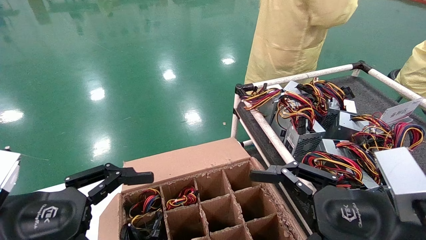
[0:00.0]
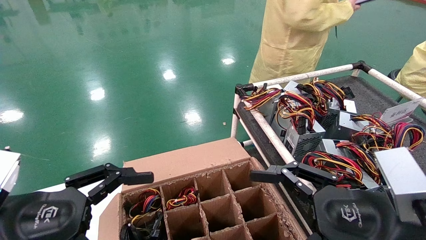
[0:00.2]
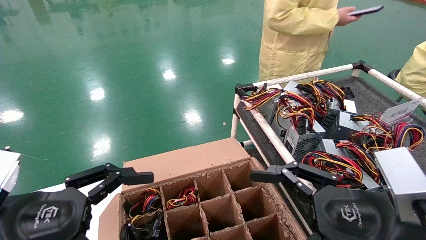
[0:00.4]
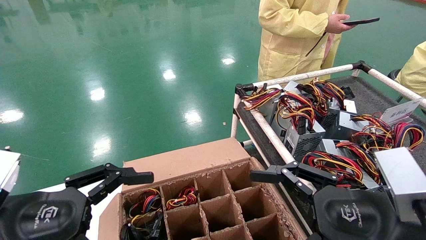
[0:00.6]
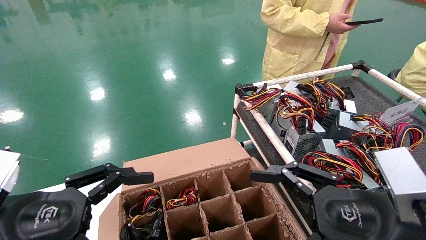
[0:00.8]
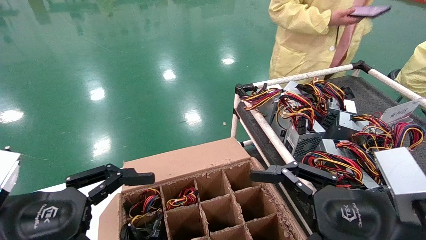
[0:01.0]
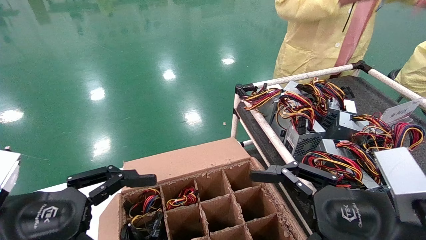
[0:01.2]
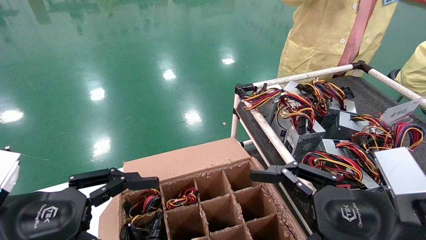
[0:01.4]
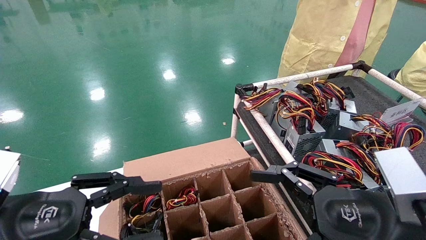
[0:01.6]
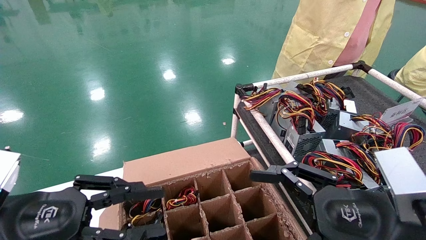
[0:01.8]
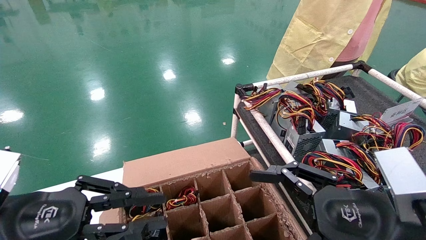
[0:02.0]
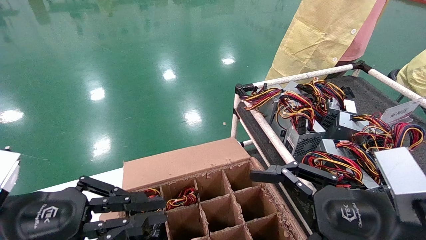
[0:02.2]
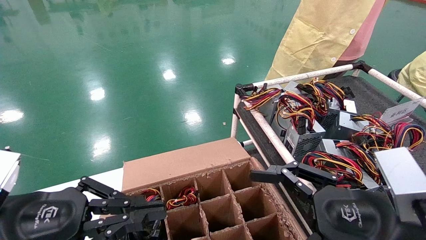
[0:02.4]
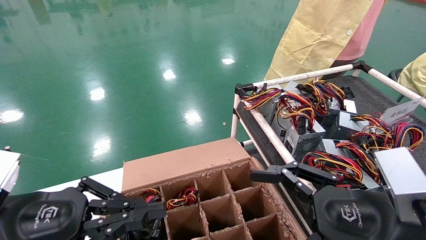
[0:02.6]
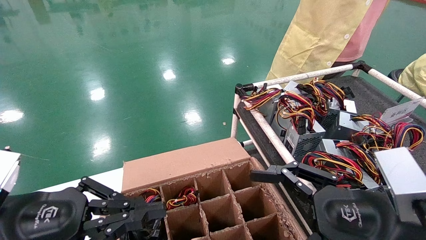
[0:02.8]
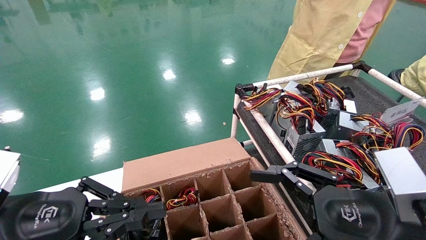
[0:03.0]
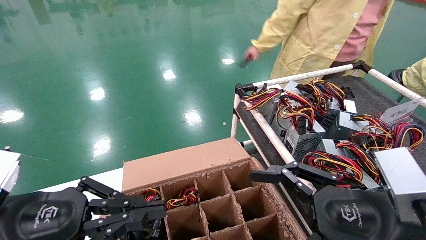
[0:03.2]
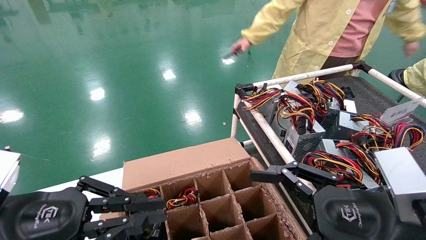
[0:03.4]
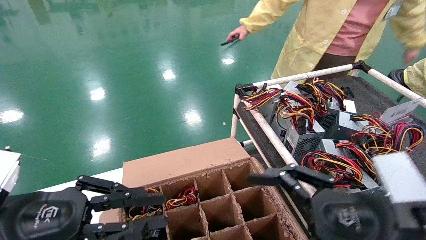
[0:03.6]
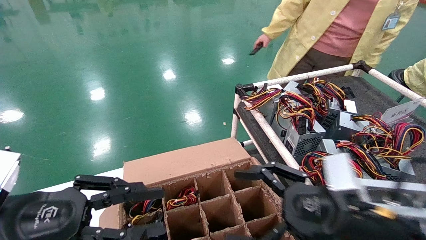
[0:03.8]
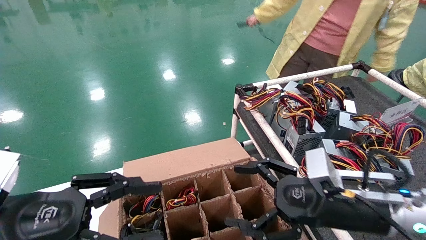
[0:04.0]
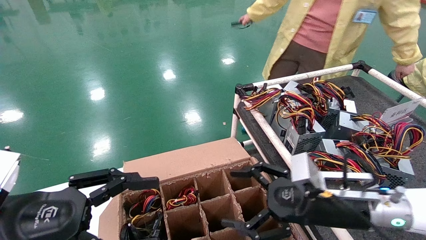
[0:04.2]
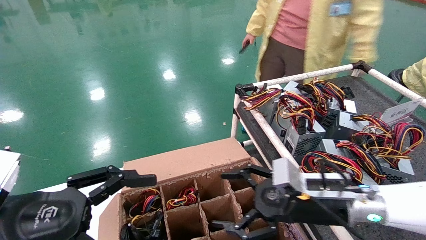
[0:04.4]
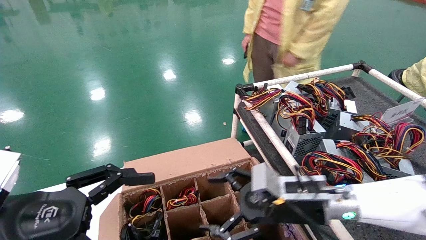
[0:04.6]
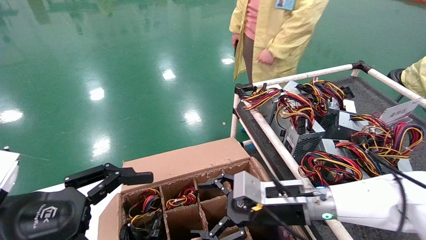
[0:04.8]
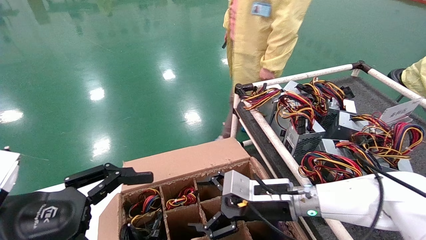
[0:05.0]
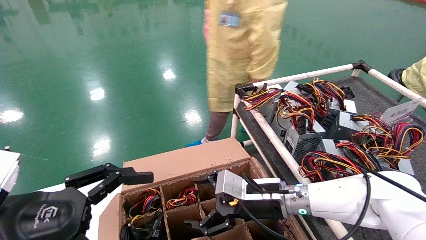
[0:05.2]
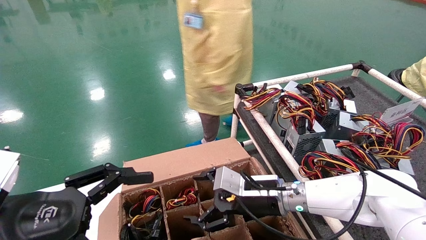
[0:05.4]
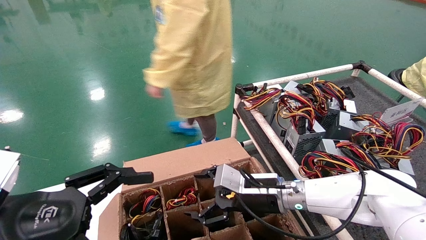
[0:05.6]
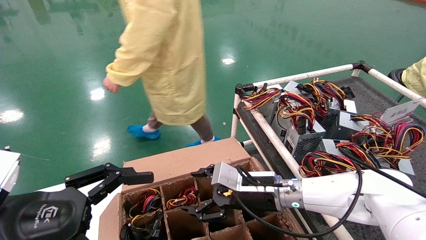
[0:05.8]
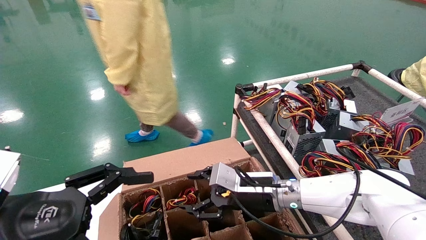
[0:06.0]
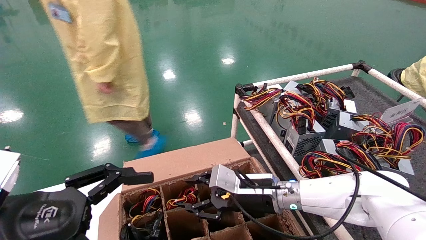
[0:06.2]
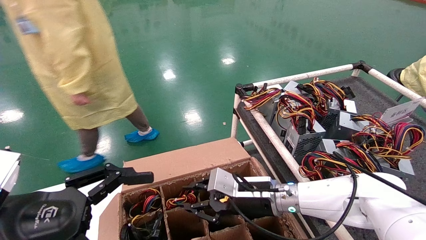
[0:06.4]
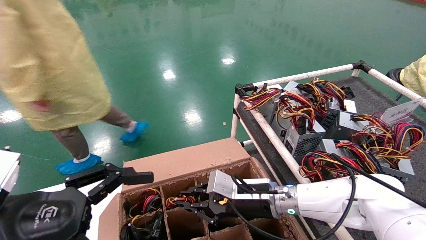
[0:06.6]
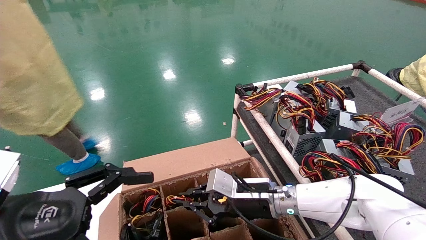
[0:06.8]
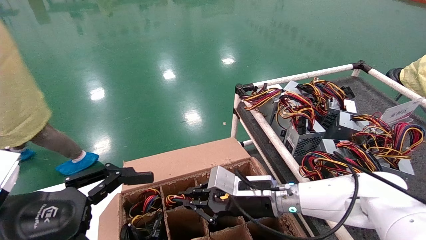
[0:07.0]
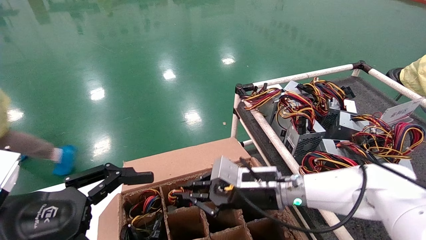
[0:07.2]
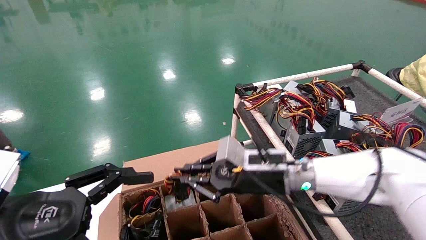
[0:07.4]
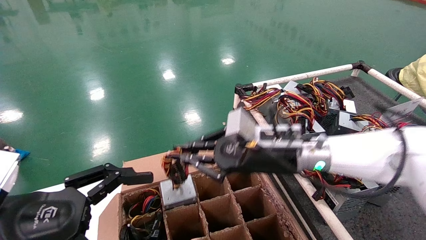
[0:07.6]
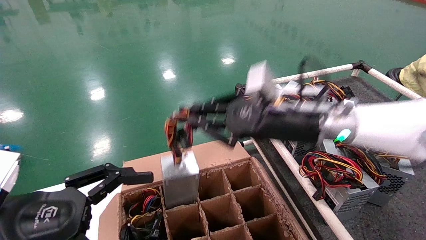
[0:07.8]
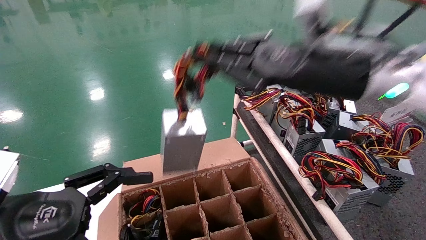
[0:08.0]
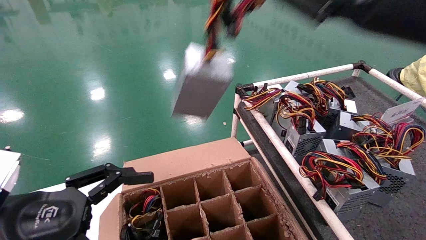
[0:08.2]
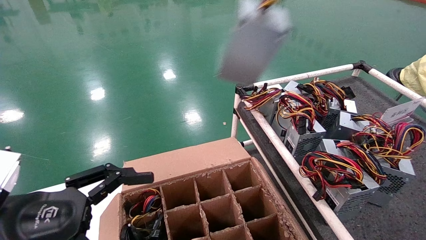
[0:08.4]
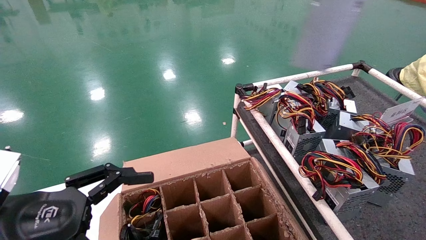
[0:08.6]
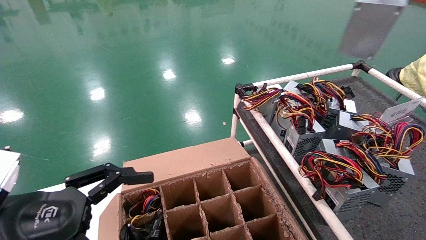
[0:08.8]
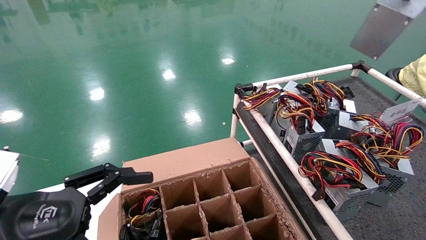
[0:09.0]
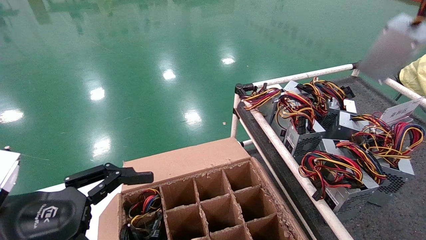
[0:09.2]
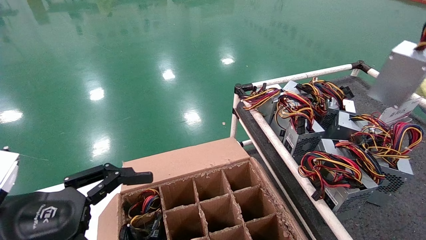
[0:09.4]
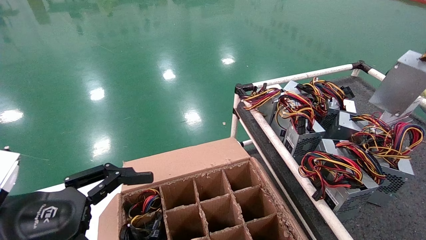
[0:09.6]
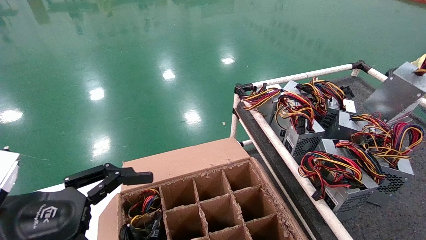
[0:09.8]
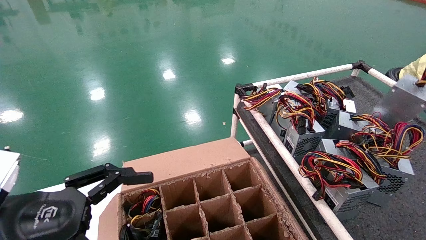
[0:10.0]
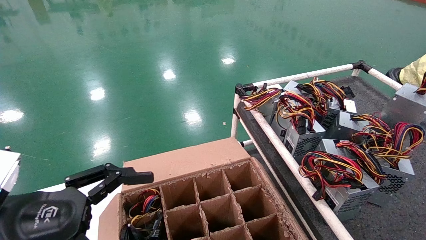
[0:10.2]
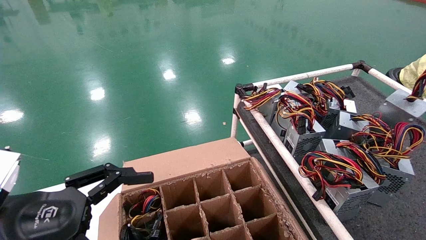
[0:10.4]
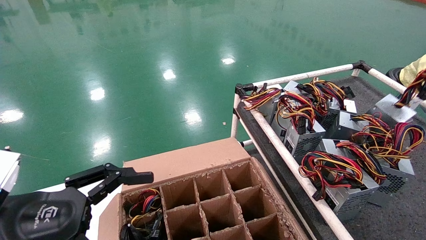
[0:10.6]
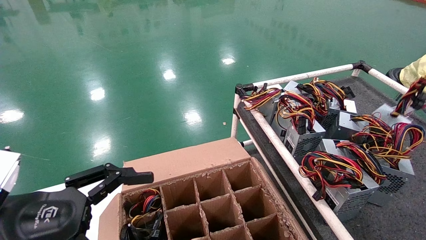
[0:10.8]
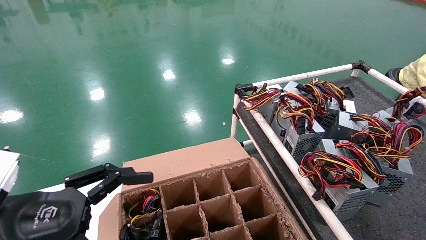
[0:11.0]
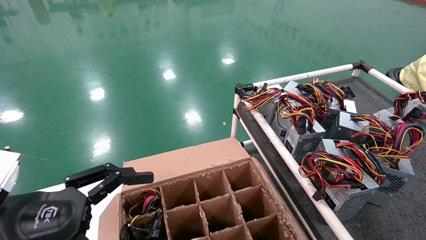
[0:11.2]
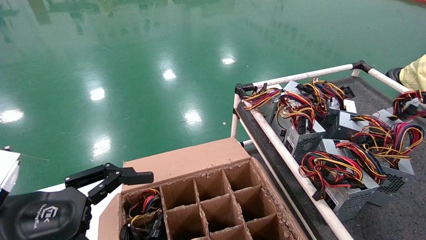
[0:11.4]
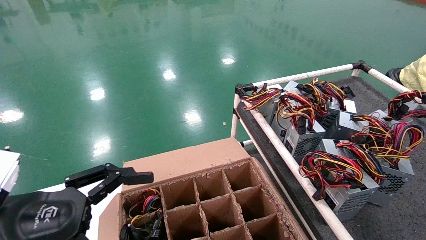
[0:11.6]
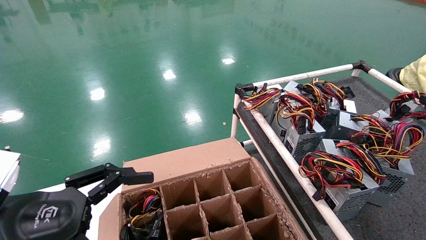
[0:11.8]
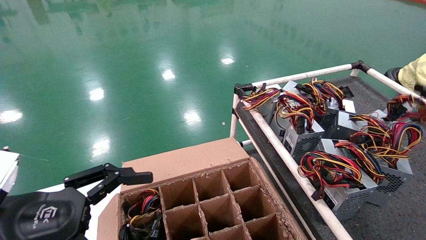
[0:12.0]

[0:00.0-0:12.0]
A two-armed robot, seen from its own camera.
Step, 0:01.8 to 0:06.8: Grab and lift the power supply from the large box.
0:00.0 to 0:01.6: Both grippers stay put.
0:01.6 to 0:03.0: The left gripper closes up.
0:03.0 to 0:04.4: The right gripper is displaced forward by some 15 cm; the left gripper opens up.
0:04.4 to 0:06.0: The right gripper travels to the left and forward by about 10 cm.
0:06.0 to 0:07.6: The right gripper is displaced upward by about 10 cm, and closes its fingers.
0:07.6 to 0:09.0: The right gripper goes roughly 40 cm to the right and upward.
0:09.0 to 0:10.4: The right gripper shifts roughly 15 cm downward and to the right.
0:10.4 to 0:12.0: The right gripper shifts by about 5 cm.

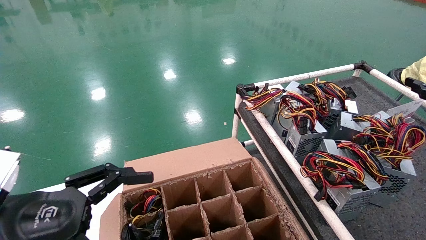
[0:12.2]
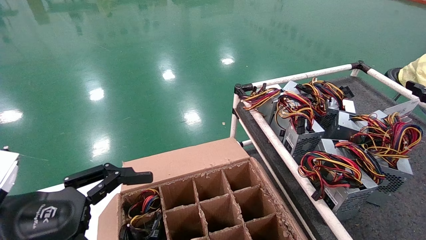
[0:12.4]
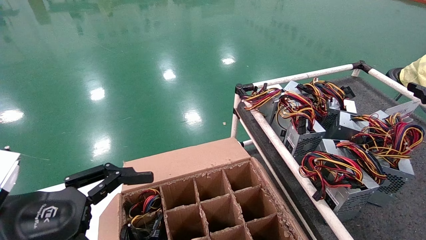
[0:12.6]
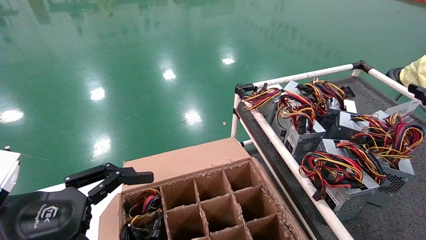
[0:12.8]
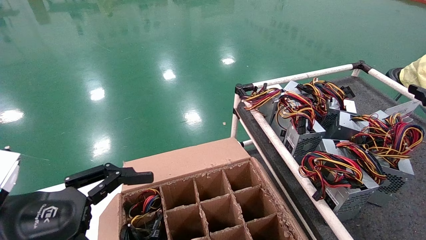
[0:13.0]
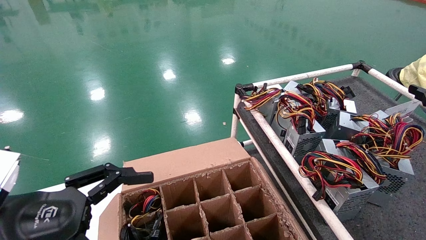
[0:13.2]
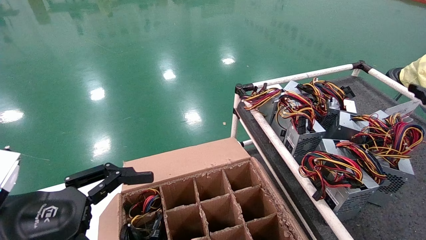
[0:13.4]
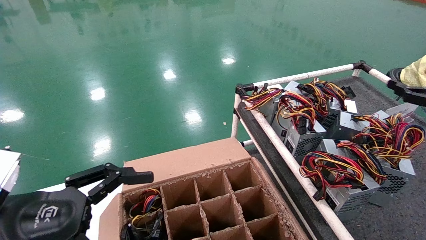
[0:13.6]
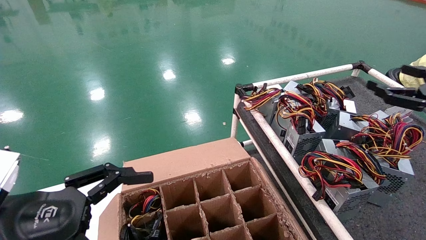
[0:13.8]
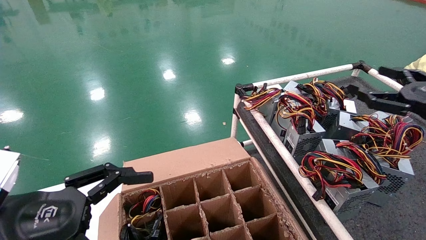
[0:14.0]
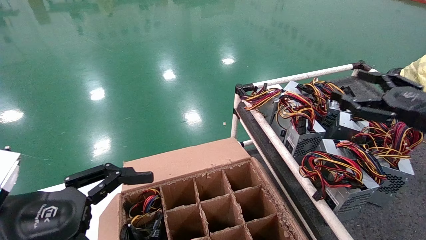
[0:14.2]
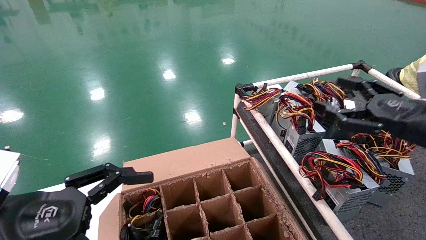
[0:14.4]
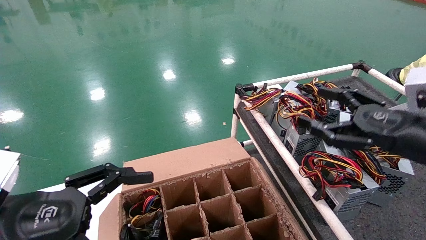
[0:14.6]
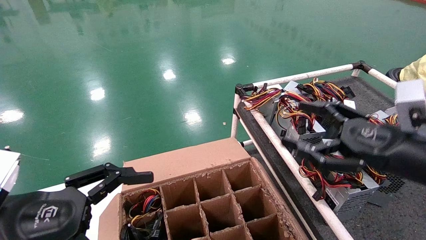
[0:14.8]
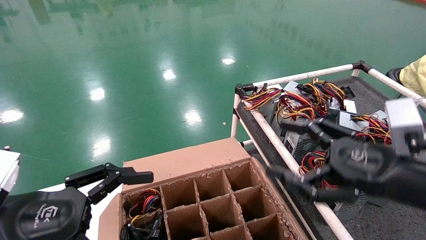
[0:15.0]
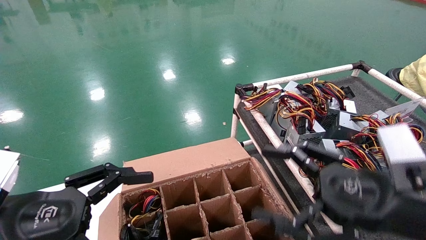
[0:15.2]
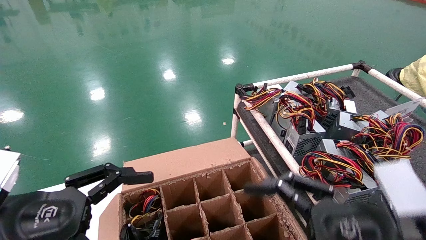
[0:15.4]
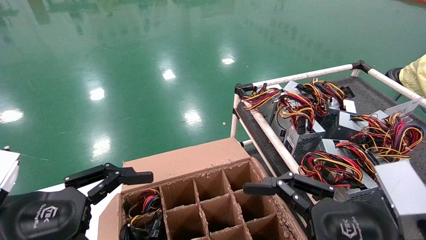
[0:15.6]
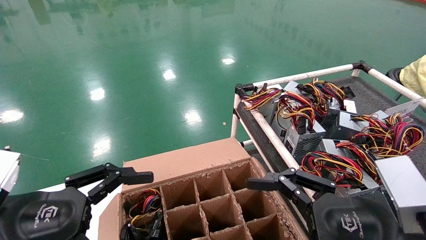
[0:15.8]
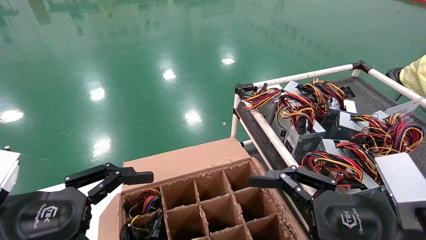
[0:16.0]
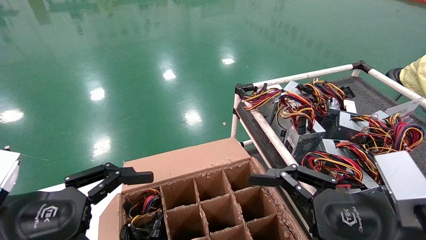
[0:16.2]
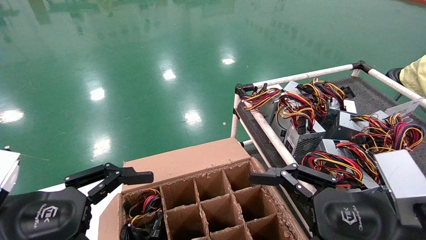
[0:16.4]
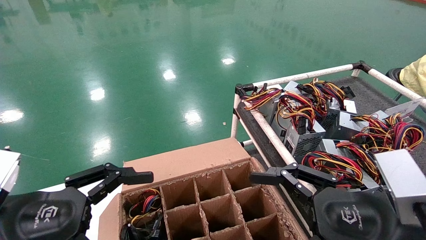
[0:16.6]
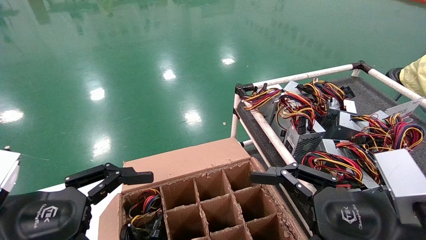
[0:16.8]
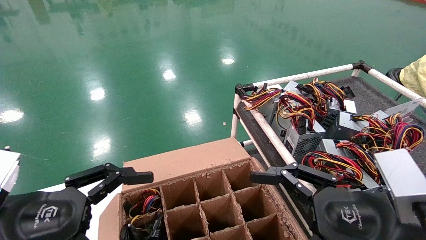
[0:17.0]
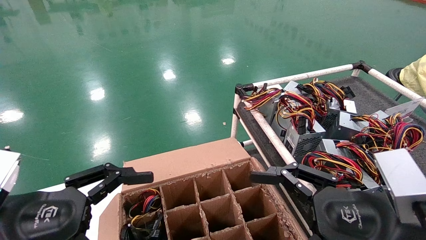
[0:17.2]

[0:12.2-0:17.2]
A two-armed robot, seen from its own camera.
0:12.2 to 0:13.8: The right gripper moves to the left, about 5 cm, and opens up.
0:13.8 to 0:15.6: The right gripper moves to the left and backward, about 25 cm.
0:15.6 to 0:17.2: Neither gripper changes place.
